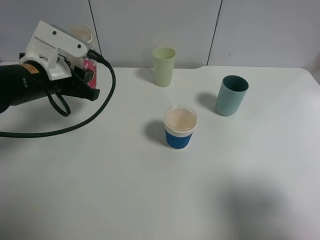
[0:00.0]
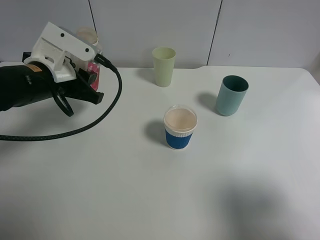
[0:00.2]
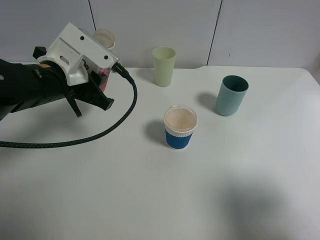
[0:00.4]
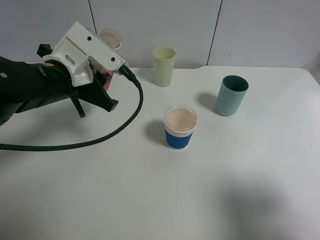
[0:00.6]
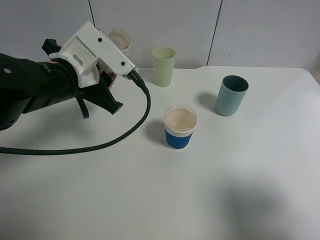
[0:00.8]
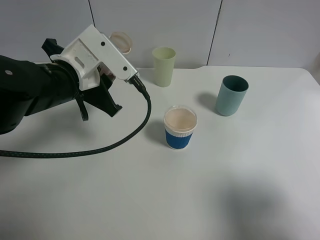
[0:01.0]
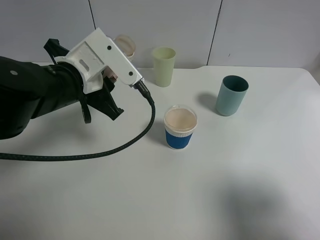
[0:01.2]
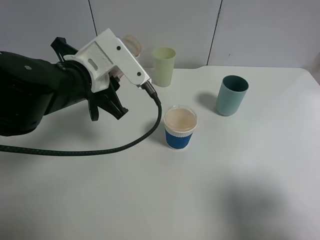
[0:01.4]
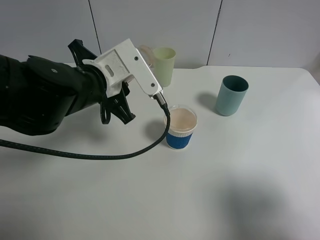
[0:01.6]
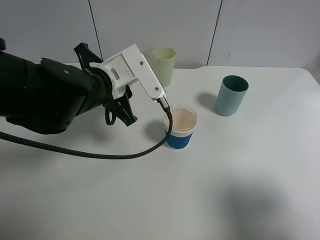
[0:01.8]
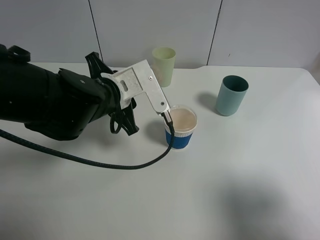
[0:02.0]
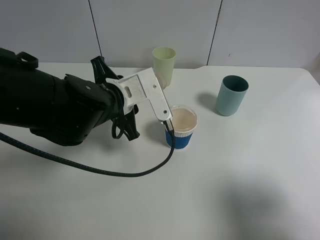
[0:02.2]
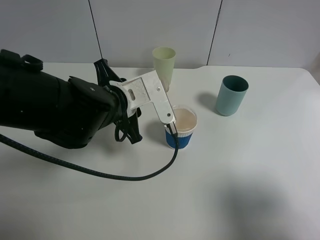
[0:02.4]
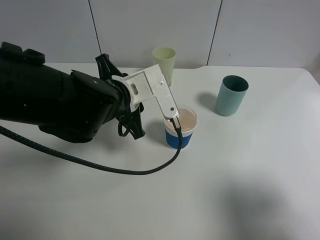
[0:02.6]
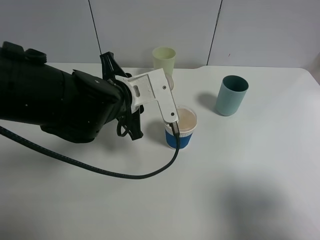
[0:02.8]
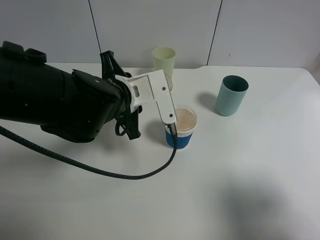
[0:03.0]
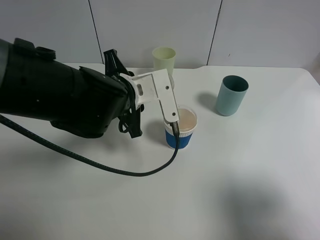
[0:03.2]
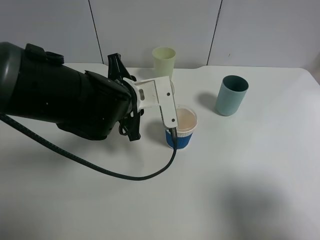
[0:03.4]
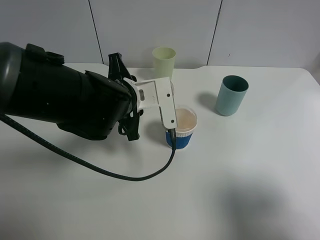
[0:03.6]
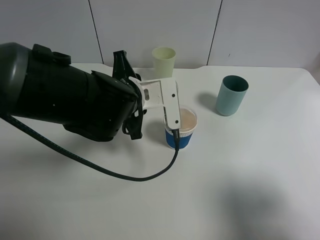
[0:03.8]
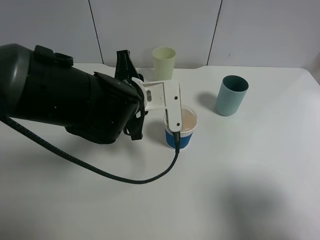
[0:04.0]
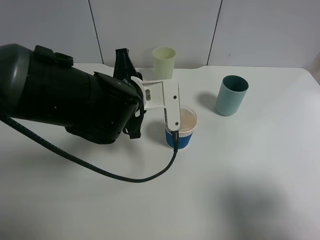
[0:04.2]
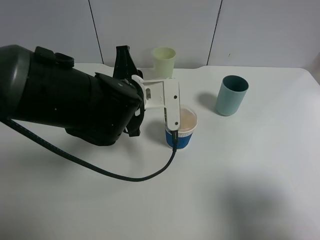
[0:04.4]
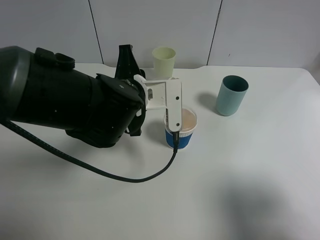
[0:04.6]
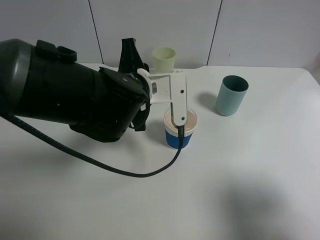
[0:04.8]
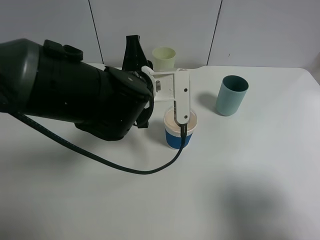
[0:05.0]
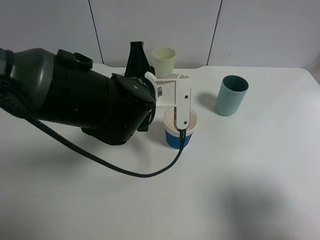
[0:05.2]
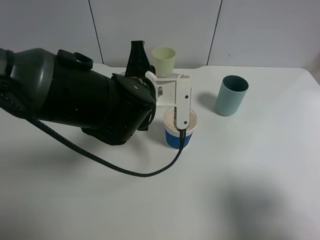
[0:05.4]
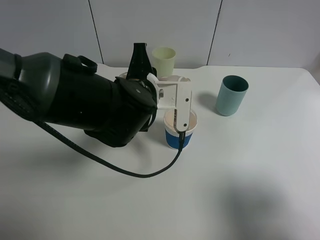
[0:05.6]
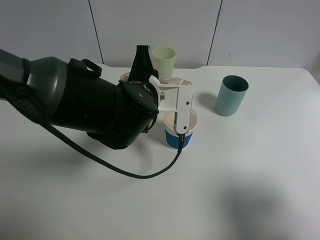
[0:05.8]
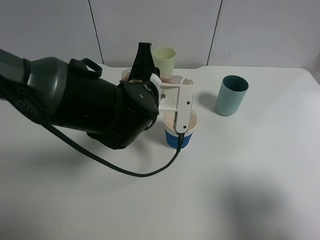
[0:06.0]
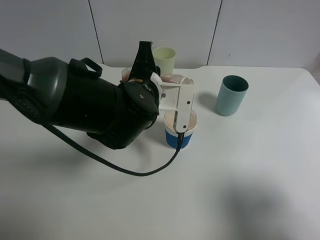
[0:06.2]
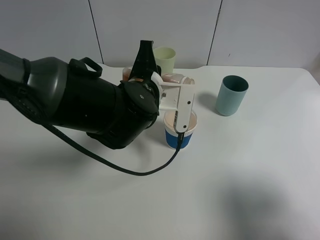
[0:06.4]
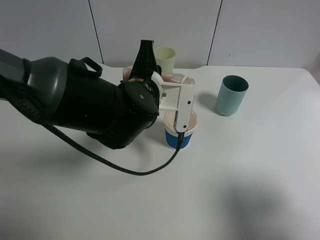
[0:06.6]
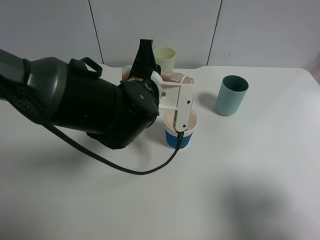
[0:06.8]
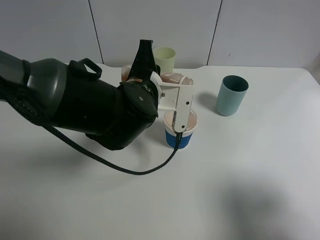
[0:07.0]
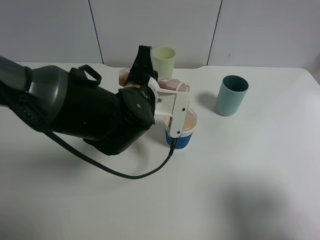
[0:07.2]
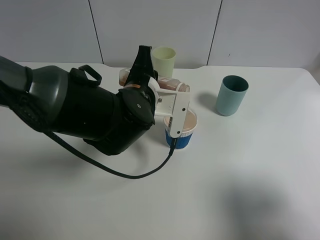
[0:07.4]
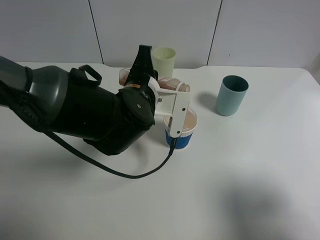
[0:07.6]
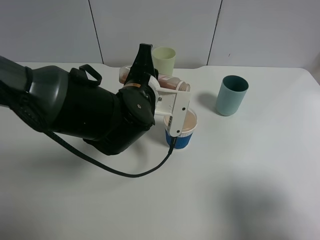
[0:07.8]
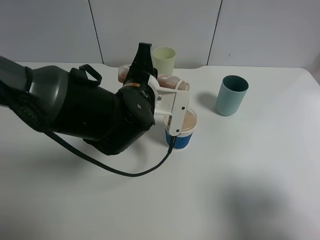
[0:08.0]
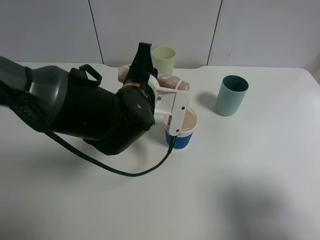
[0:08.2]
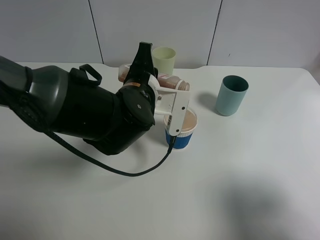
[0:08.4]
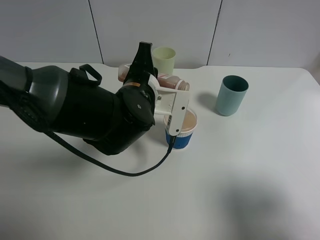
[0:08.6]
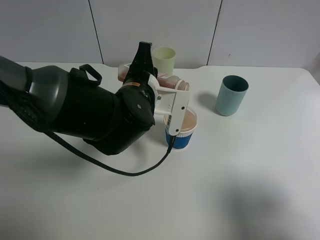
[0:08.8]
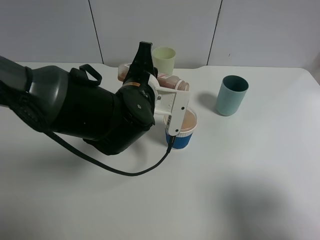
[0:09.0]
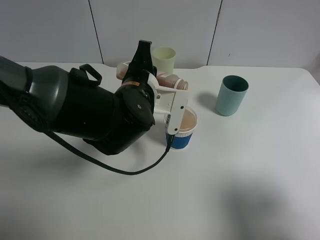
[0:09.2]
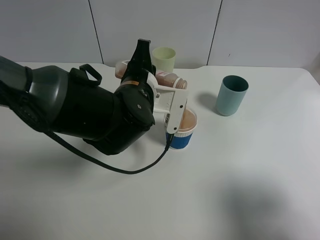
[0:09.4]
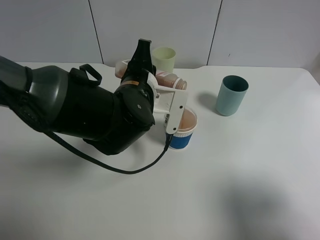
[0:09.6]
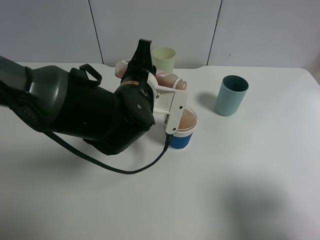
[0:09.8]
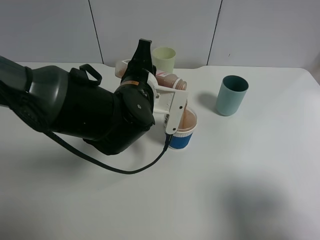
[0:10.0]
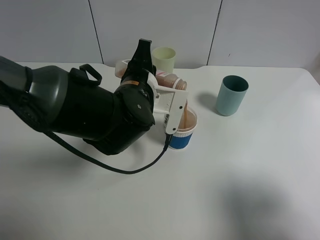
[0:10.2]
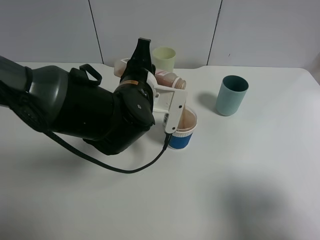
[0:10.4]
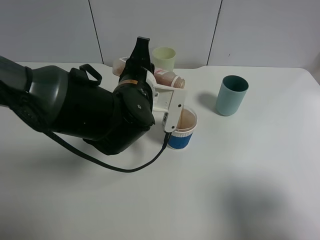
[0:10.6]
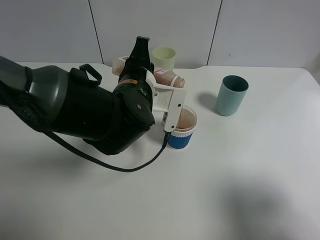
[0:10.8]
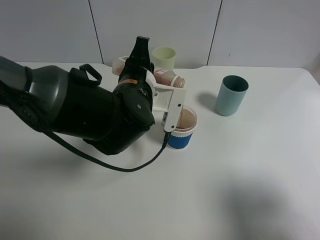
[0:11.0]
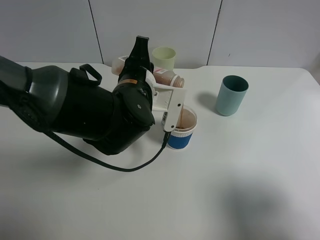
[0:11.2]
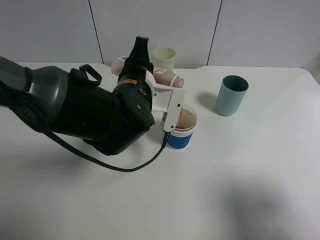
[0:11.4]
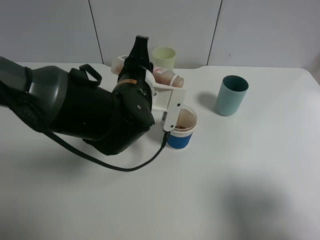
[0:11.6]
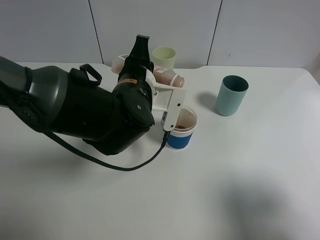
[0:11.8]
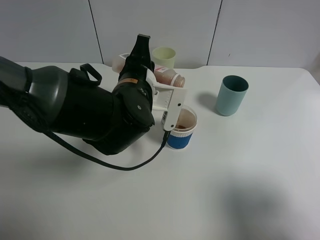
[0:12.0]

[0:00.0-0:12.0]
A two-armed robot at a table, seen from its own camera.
Task of the whole recording: use a gripper to hold the bottle of the drink and pour it into a random cup.
0:00.0 to 0:01.6: The left gripper shifts roughly 10 cm to the right.
0:01.6 to 0:03.0: The grippers move only a little.
0:03.0 to 0:04.4: The grippers make only small movements.
0:04.4 to 0:07.6: There are only small adjustments of the grippers.
0:07.6 to 0:09.0: Neither gripper changes place.
0:09.0 to 0:10.4: The two grippers keep their place.
0:10.4 to 0:12.0: Both grippers stay put.

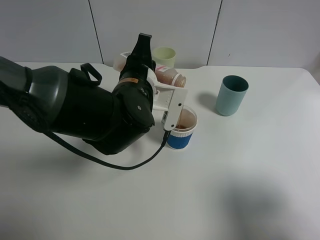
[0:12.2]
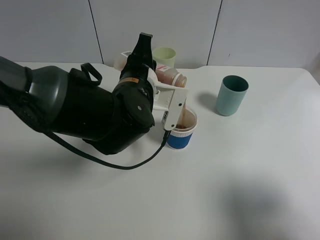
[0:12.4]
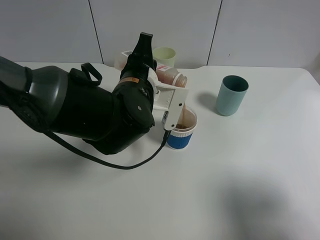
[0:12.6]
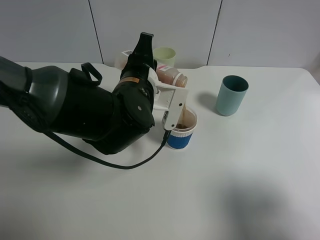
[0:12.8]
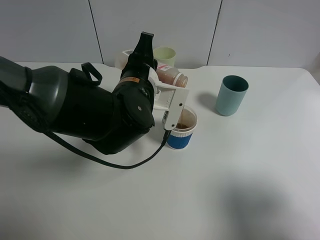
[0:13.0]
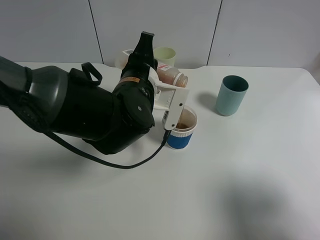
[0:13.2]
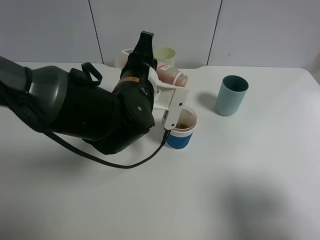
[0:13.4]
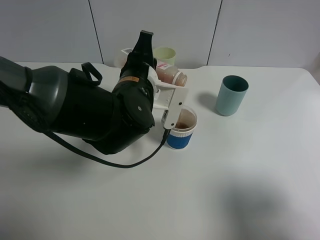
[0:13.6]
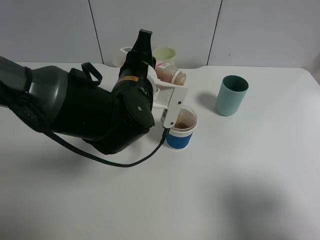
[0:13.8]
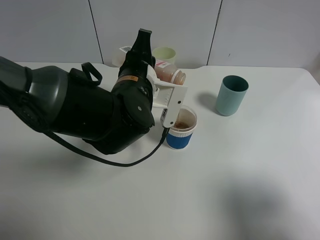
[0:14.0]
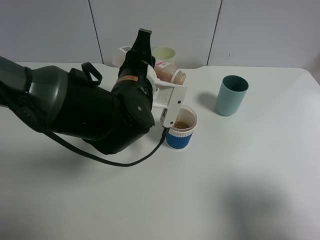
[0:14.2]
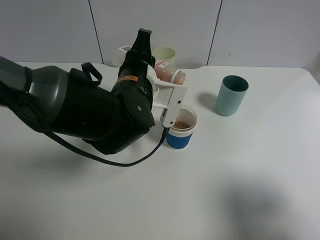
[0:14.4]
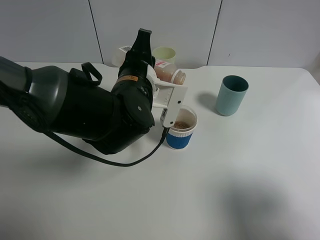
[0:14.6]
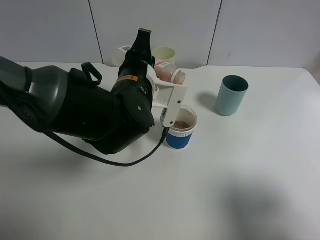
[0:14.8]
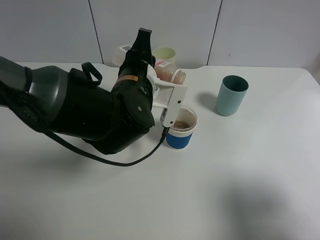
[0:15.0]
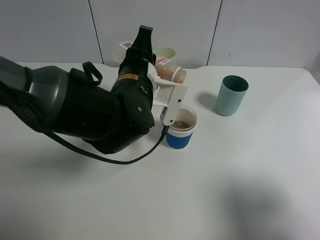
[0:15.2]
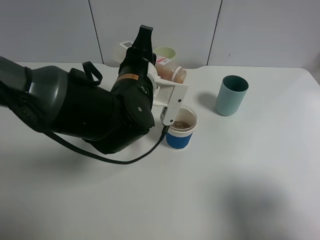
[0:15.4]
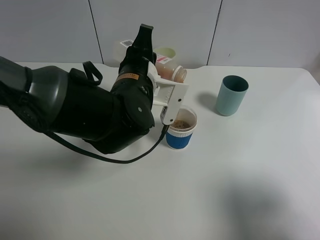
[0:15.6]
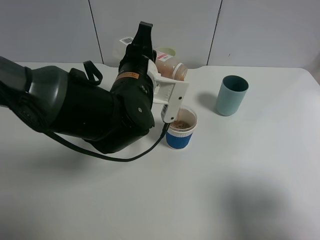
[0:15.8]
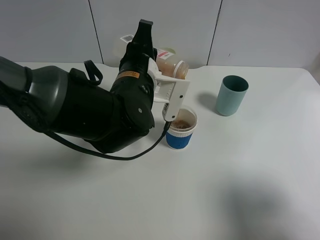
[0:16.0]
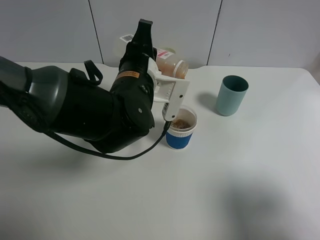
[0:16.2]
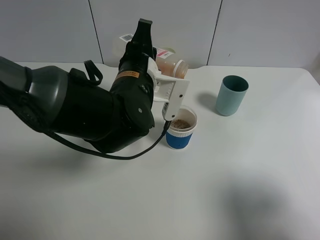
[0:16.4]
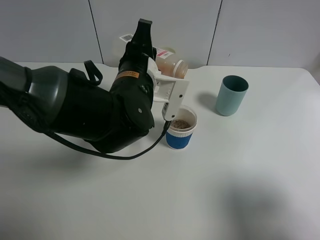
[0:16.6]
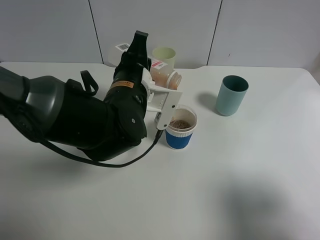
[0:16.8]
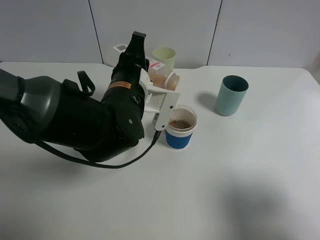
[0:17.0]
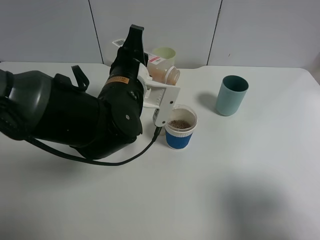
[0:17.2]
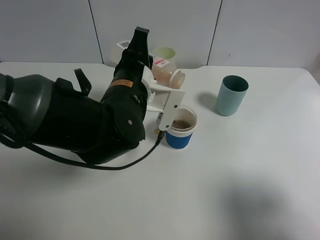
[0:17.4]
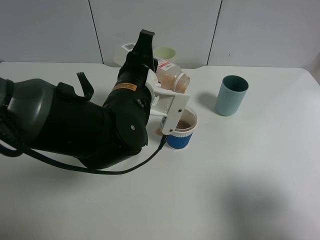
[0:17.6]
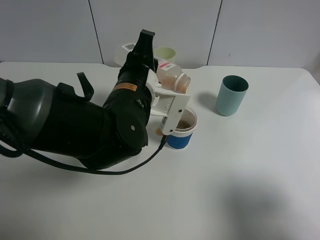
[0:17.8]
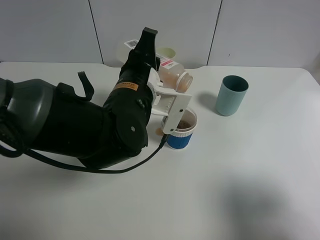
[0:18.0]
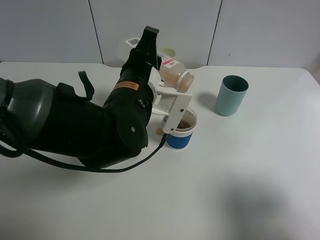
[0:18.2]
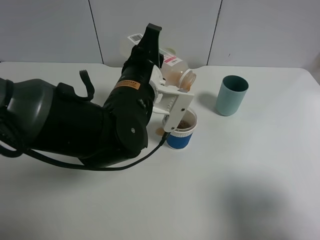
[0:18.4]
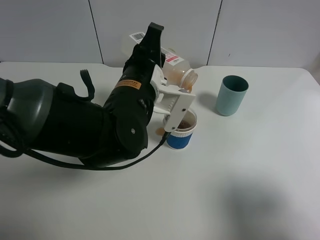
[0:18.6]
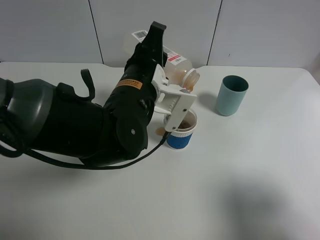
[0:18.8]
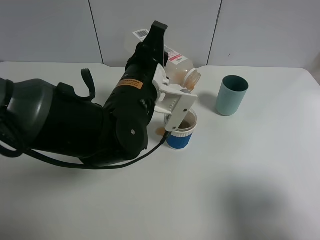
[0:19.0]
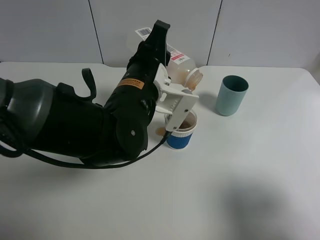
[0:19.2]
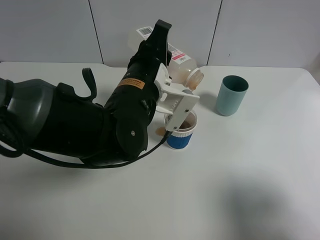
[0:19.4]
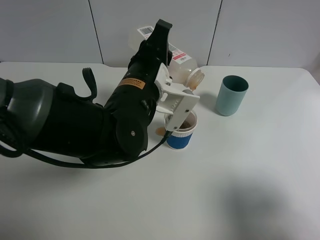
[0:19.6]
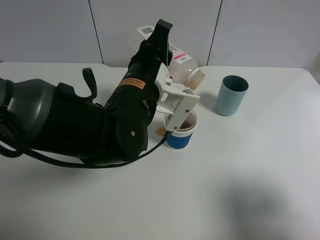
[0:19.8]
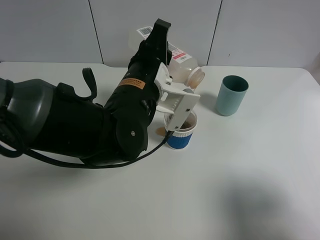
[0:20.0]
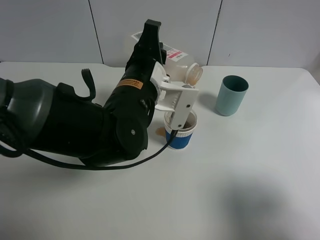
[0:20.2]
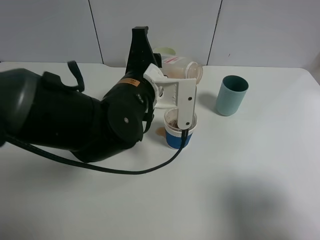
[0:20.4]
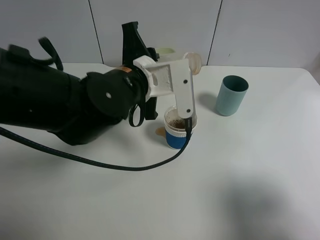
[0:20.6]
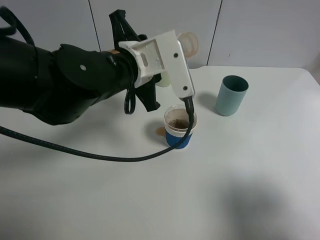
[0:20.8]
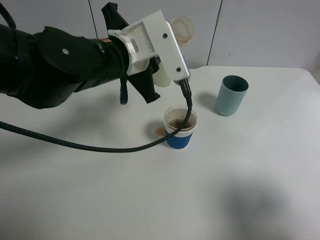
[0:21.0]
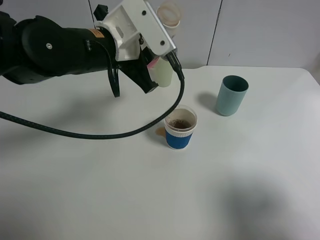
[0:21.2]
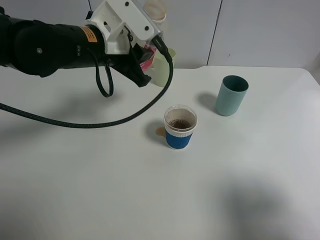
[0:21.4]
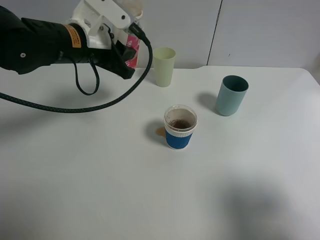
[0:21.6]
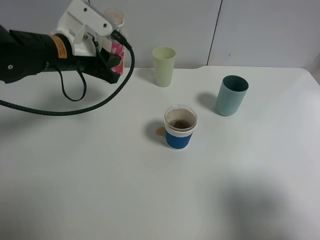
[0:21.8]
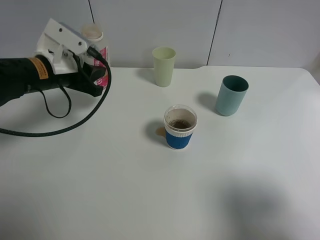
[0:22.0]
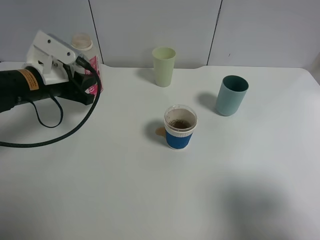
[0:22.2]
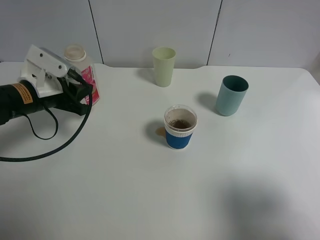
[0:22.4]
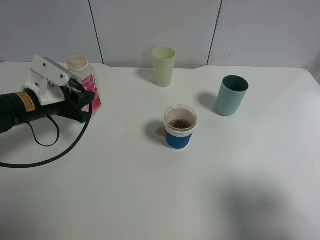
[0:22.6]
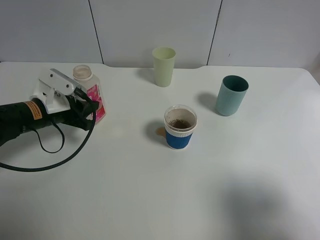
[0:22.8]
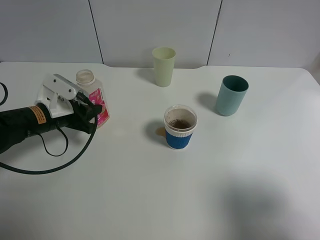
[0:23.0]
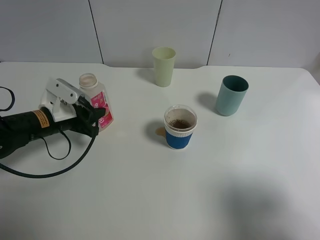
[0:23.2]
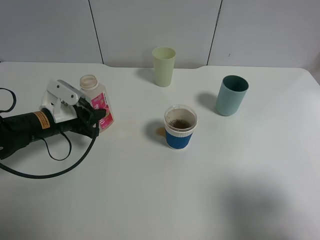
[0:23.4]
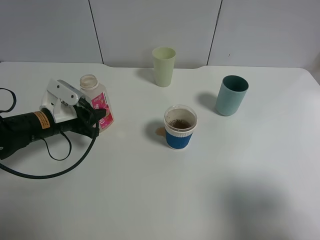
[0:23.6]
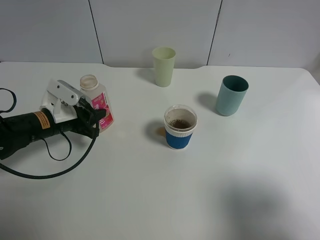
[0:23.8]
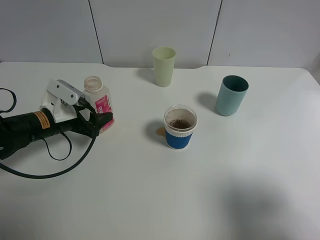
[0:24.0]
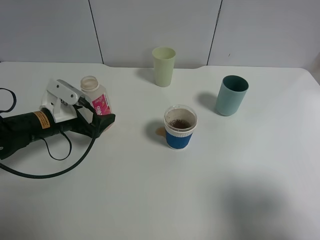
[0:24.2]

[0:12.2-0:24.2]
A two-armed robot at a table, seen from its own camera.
Task of the whole recording: use a gripper to hold the bottle of the drink and pour it into a random cup.
Step, 0:12.2 to 0:20.2: Pour the cranberry juice into the paper cup with the left gripper.
Step, 0:20.4 to 0:24.2: Place the cranberry juice bottle on the table with the left gripper.
0:12.2 to 0:15.2: Both grippers stay about where they are.
0:15.2 to 0:16.6: Both grippers stay put.
0:16.6 to 0:19.8: The grippers move only a little.
0:19.8 to 0:21.2: The left gripper moves to the left, roughly 5 cm.
0:21.2 to 0:22.6: The left gripper heads to the left and downward, covering some 20 cm.
0:22.6 to 0:24.2: The left gripper opens.
